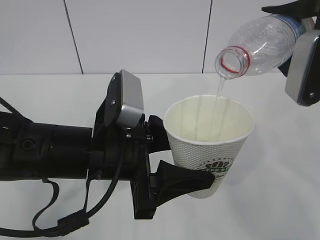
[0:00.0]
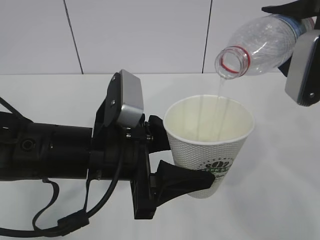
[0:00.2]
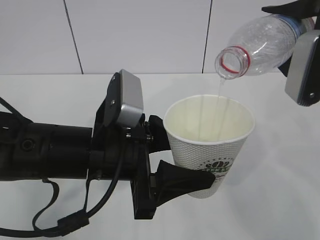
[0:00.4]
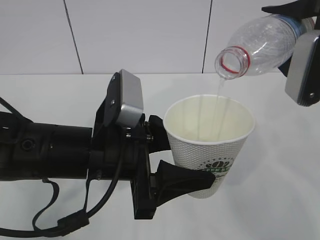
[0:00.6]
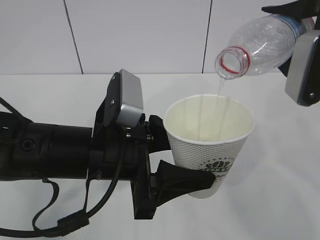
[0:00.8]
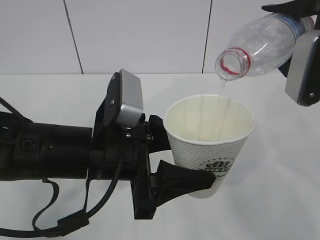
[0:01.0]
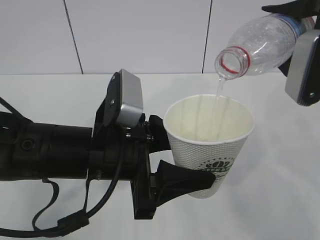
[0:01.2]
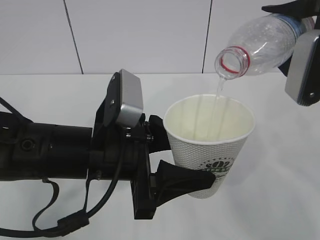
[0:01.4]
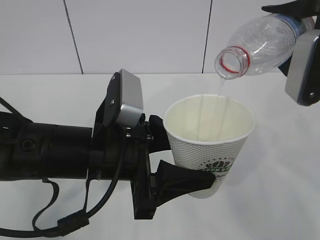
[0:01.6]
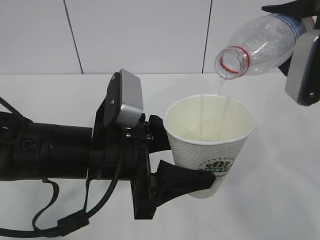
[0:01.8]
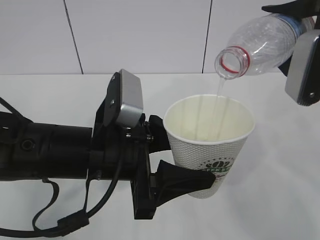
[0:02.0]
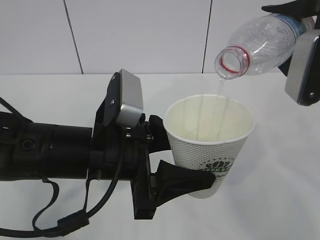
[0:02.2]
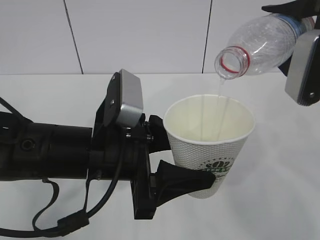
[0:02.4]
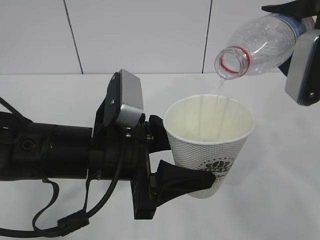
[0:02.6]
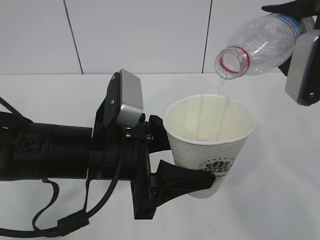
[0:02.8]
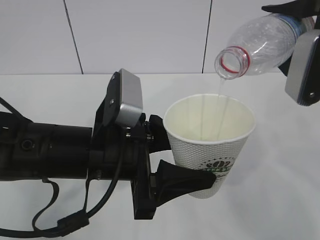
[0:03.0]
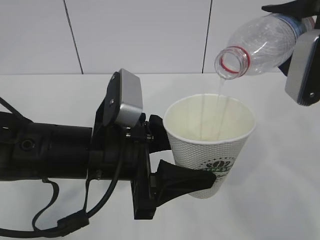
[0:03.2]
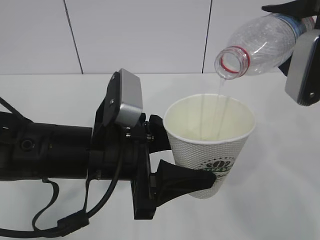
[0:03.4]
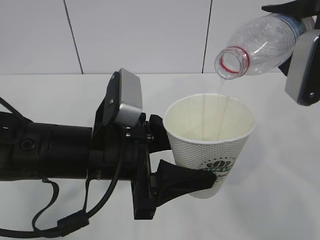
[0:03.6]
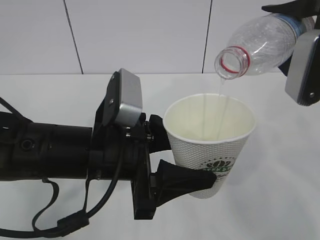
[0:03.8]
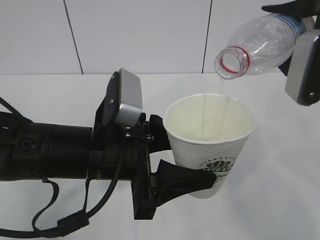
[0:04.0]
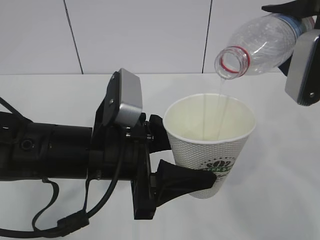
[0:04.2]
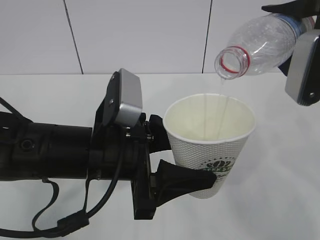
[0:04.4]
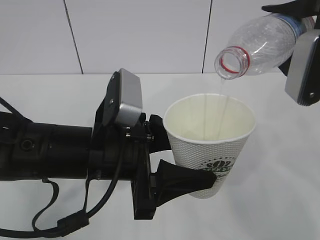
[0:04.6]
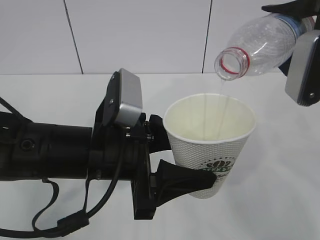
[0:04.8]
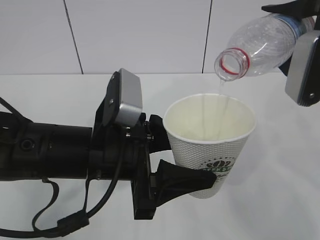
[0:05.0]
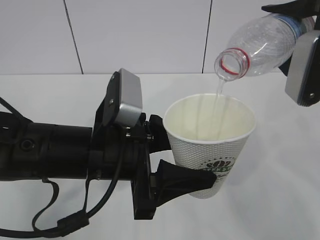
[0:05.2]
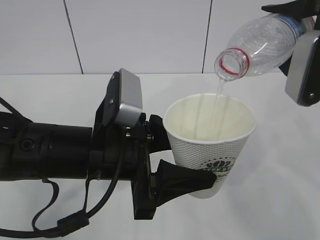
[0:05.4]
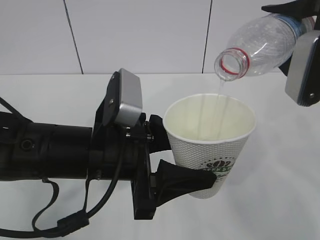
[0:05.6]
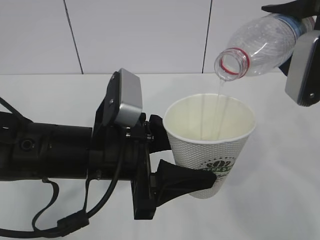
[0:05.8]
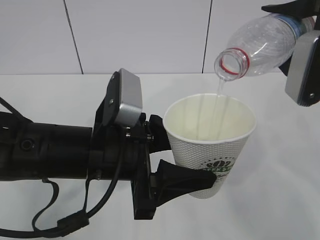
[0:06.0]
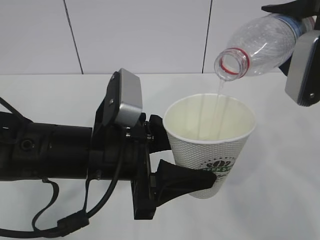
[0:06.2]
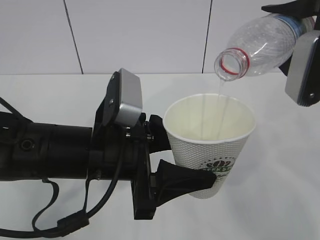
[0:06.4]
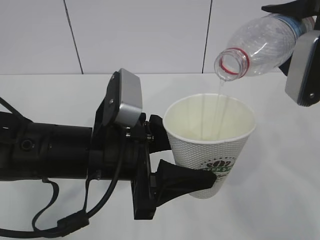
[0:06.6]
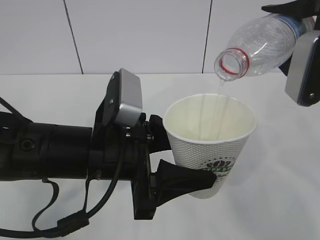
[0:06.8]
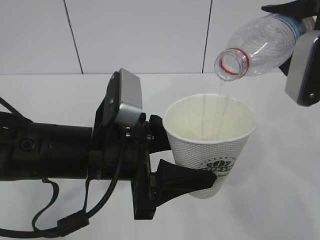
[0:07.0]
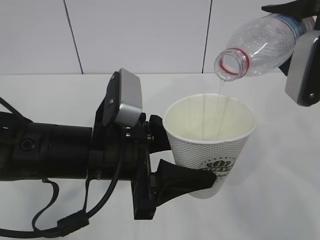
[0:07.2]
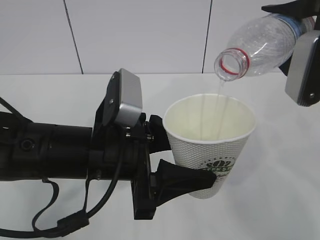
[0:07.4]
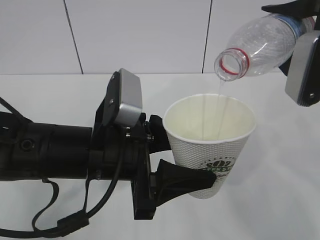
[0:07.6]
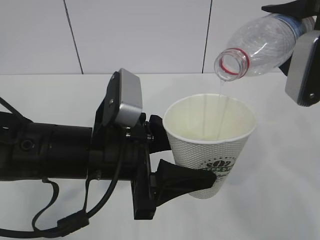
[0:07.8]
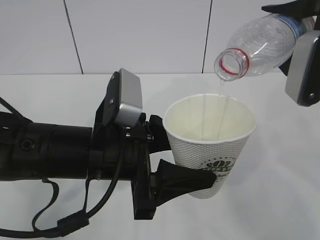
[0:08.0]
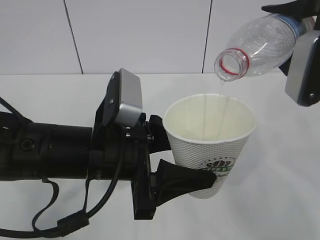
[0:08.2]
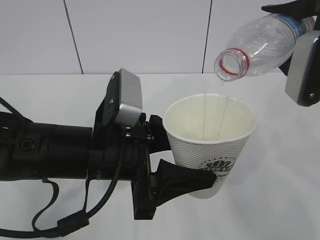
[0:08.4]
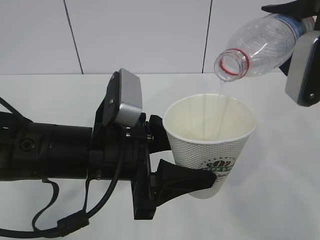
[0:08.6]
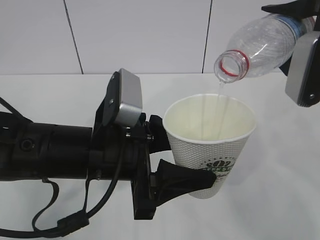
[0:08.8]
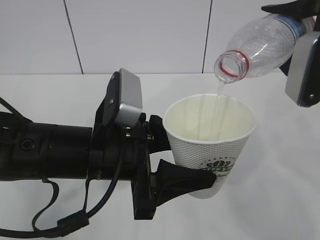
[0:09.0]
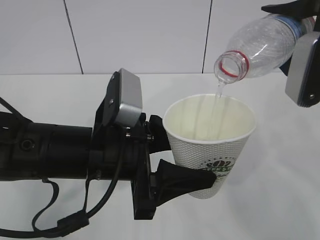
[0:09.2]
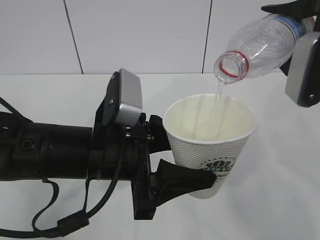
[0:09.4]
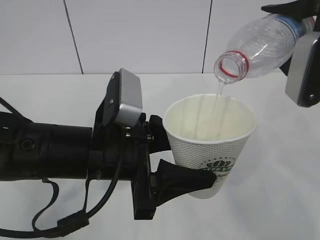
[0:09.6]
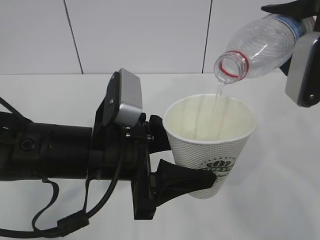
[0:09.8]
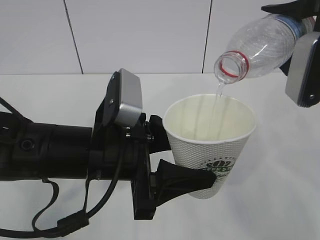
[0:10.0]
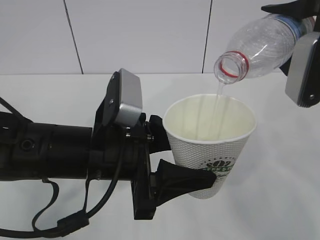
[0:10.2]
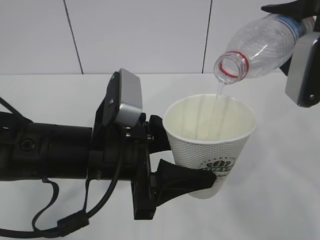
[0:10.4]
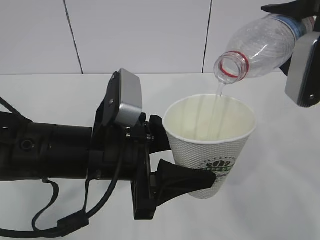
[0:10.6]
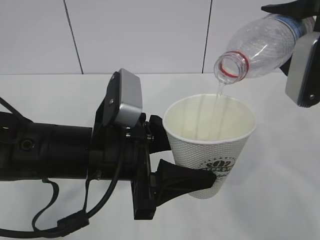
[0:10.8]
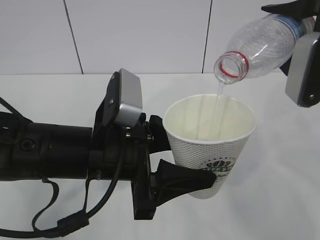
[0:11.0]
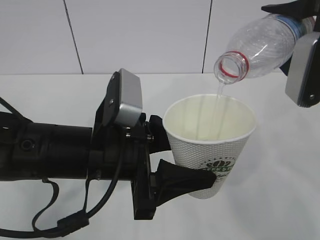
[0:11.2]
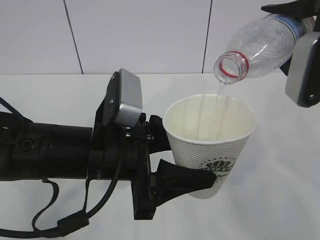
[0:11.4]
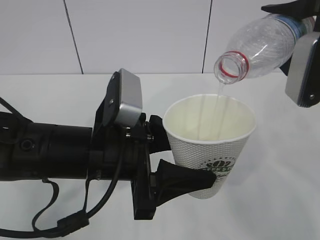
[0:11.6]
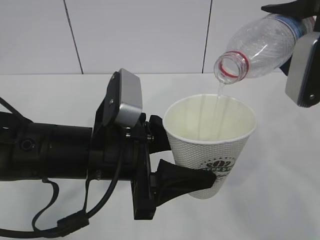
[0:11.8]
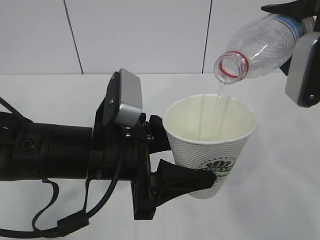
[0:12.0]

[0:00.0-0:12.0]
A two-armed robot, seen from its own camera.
0:00.0 to 0:12.0: Both grippers stay about where they are.

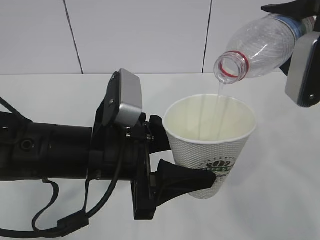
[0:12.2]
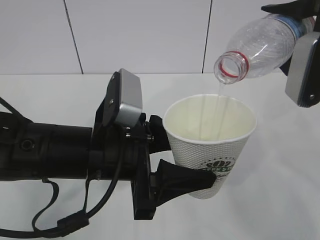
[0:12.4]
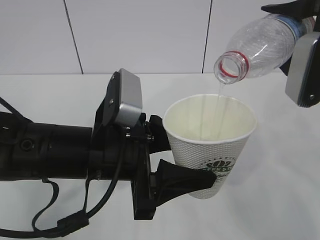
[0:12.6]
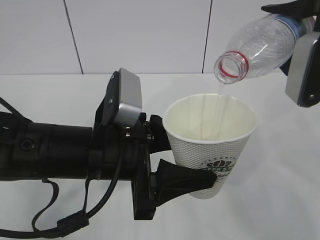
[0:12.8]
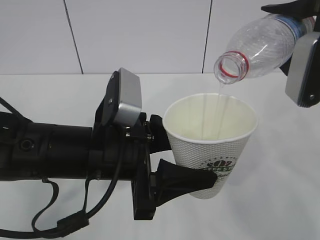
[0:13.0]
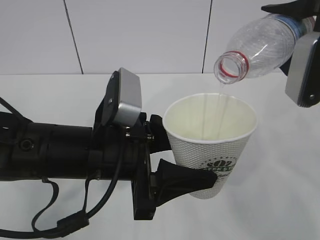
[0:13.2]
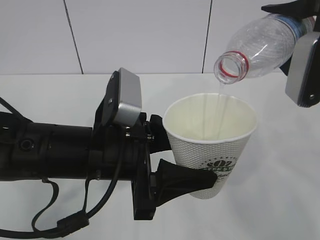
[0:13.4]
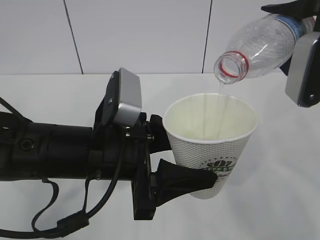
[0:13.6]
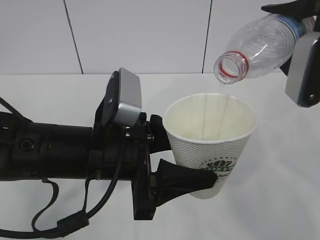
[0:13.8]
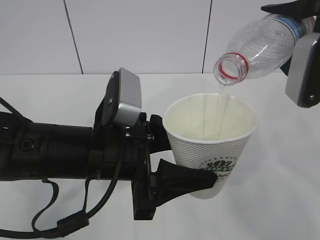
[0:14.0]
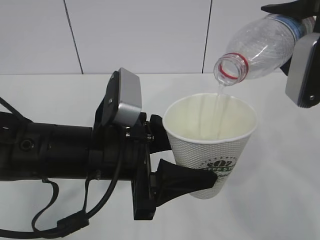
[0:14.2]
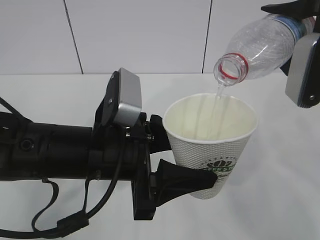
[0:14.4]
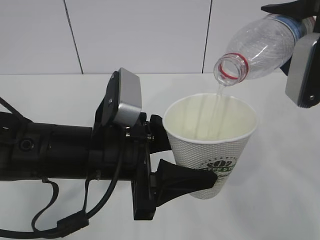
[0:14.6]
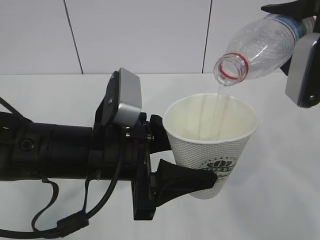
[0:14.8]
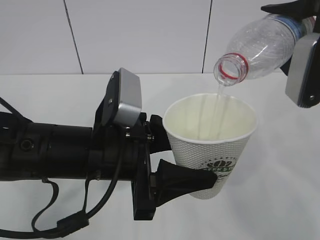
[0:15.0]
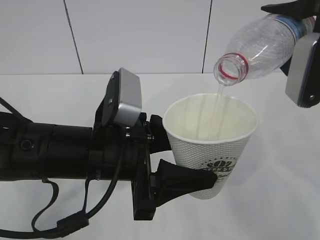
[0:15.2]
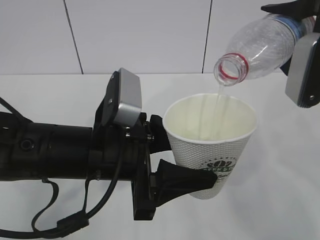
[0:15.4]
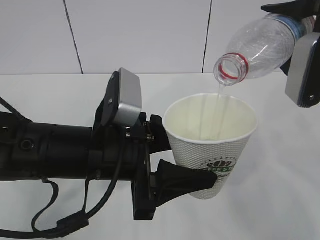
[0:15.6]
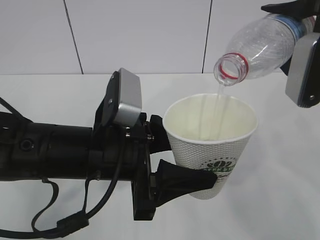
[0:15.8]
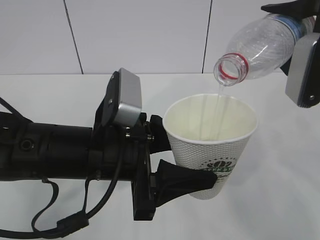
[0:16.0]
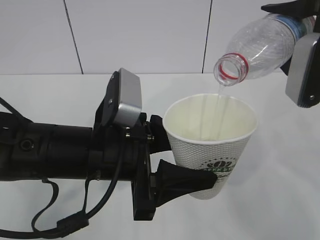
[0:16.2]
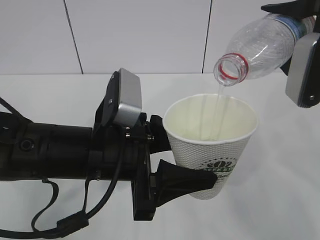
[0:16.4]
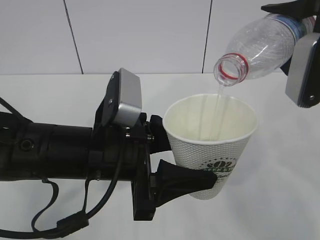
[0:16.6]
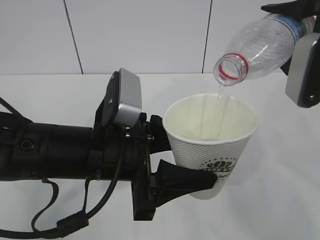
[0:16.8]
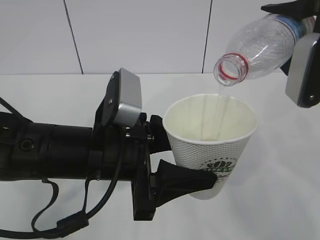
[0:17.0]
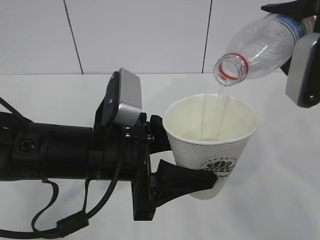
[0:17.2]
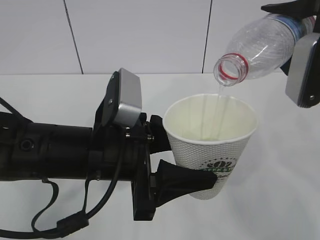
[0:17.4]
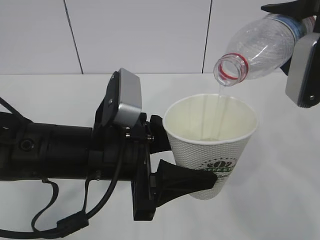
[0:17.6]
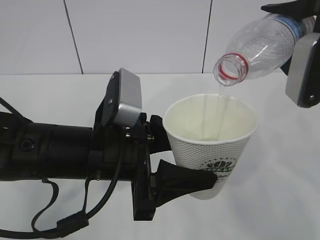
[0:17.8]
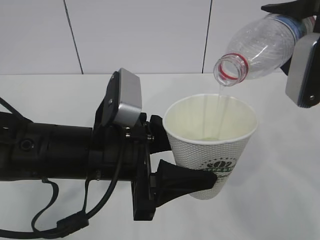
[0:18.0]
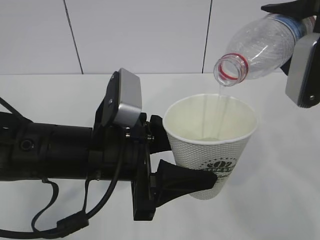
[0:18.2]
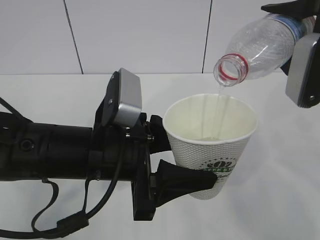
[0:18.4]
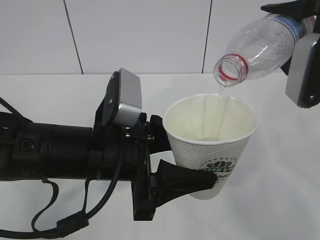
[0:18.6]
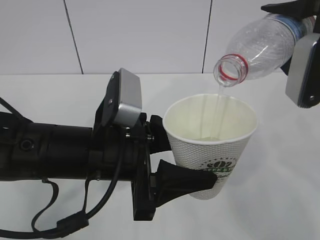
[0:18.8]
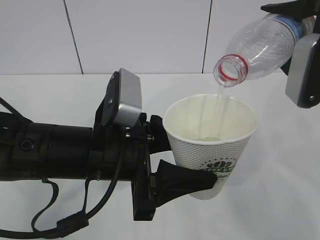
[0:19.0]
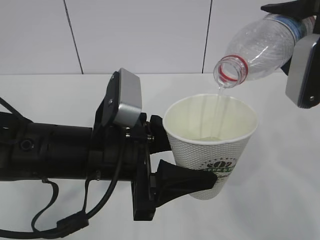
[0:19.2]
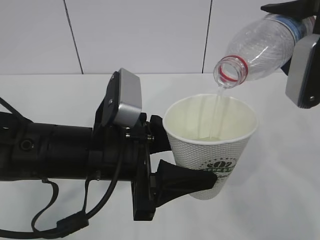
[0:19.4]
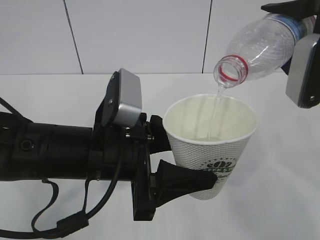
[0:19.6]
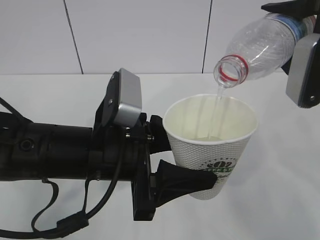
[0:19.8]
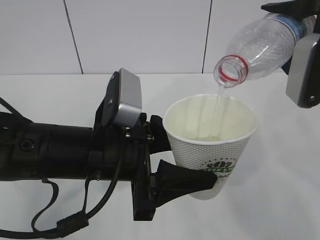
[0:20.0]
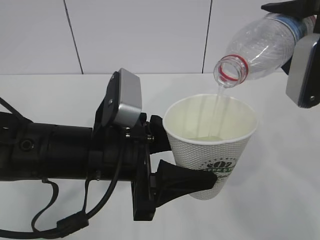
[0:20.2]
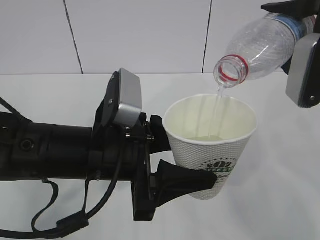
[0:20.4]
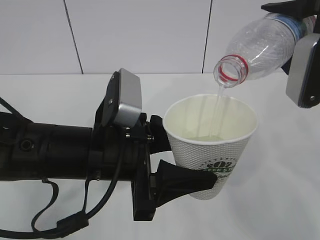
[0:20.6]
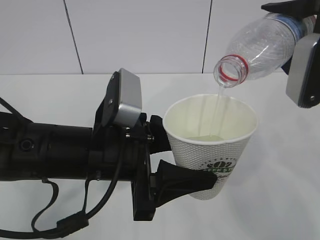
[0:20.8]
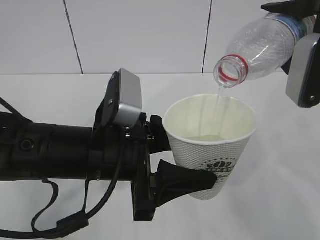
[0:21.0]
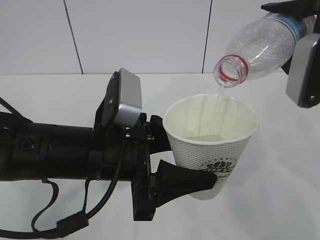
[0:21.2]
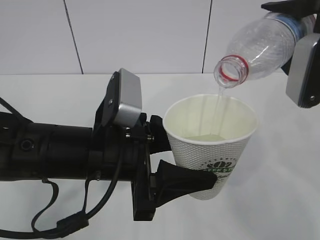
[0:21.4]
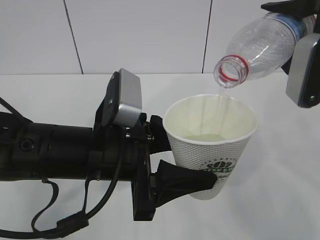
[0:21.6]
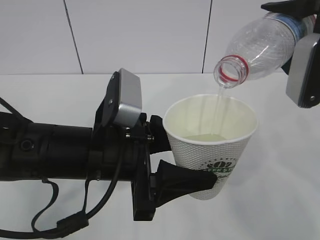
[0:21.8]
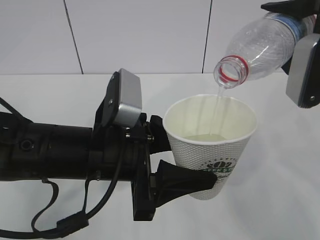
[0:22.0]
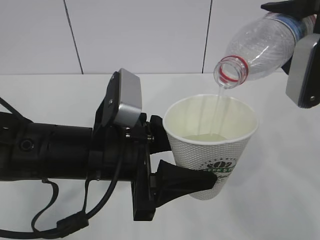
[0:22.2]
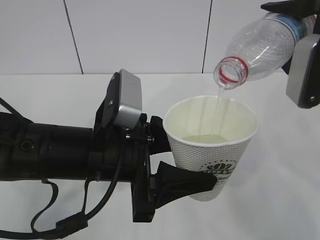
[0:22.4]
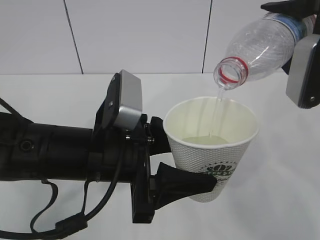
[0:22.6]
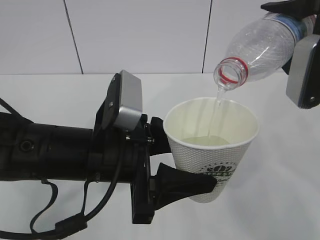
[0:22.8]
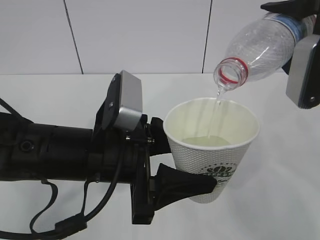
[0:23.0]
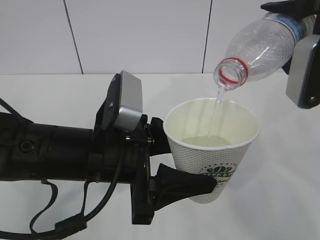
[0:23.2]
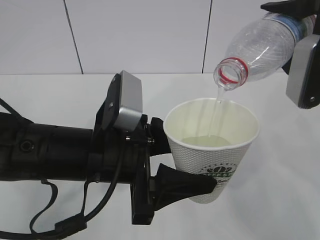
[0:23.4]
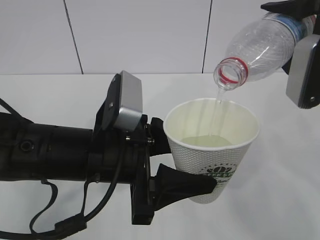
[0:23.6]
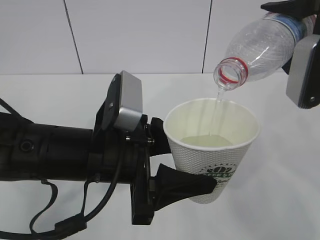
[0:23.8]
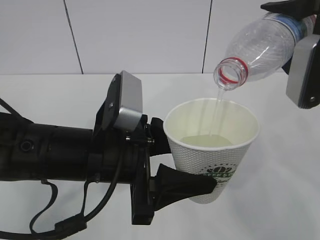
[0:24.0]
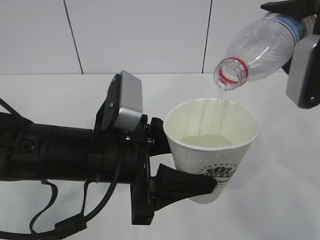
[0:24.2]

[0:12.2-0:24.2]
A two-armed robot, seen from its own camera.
0:12.2 to 0:24.2: The two grippers keep their place.
